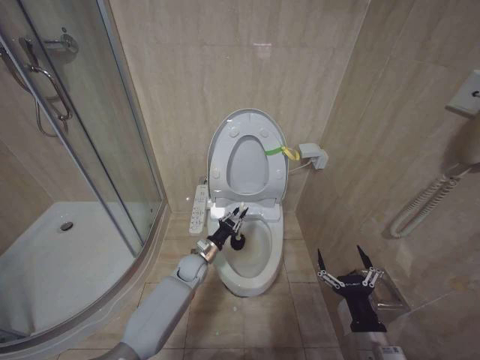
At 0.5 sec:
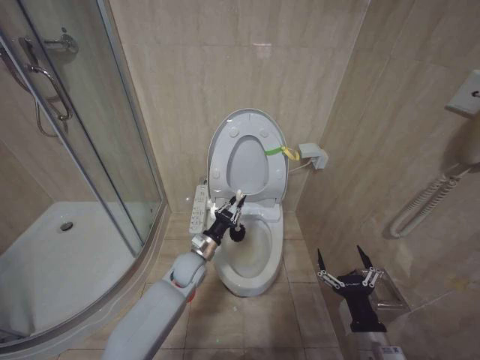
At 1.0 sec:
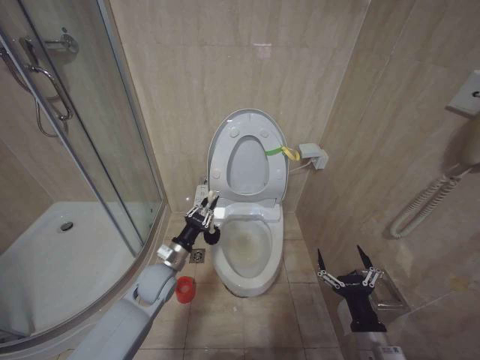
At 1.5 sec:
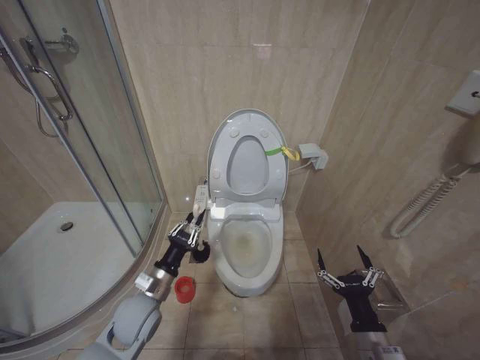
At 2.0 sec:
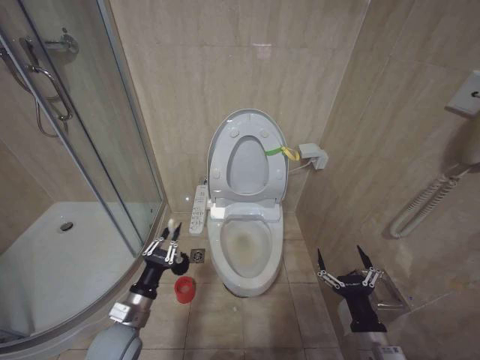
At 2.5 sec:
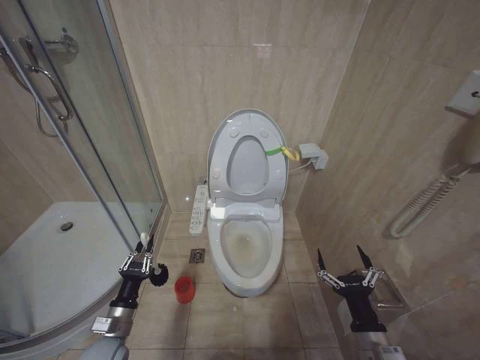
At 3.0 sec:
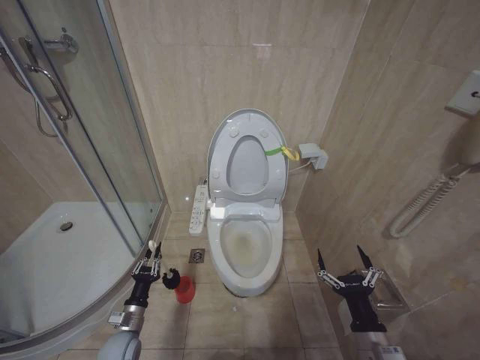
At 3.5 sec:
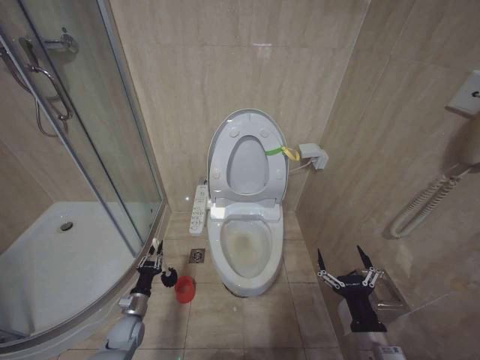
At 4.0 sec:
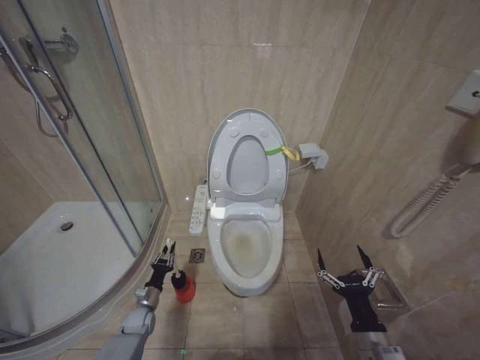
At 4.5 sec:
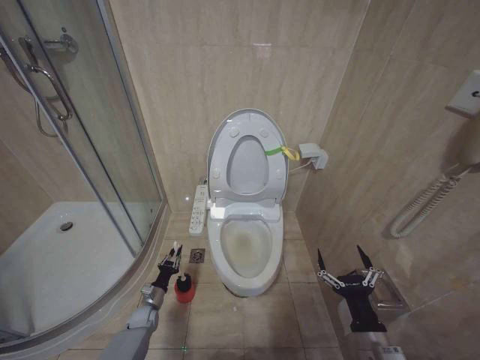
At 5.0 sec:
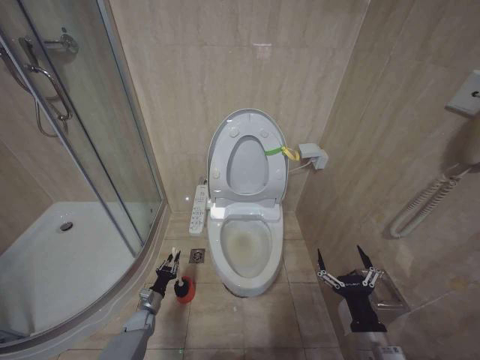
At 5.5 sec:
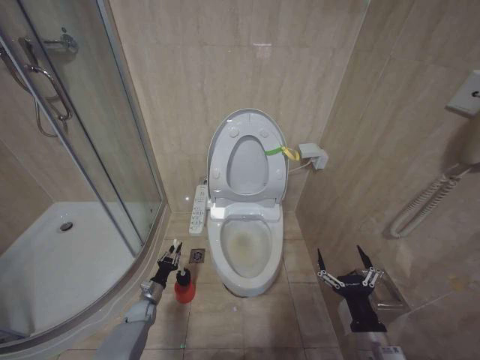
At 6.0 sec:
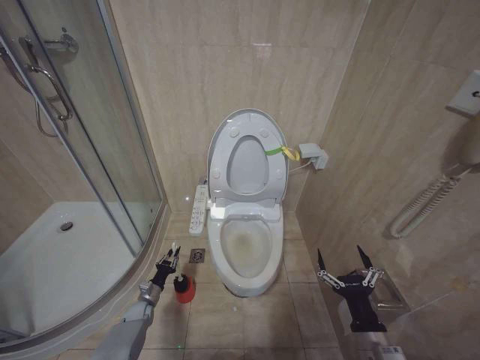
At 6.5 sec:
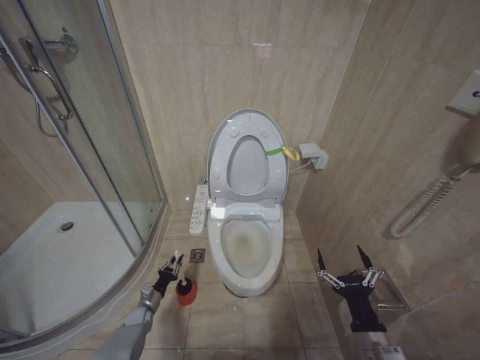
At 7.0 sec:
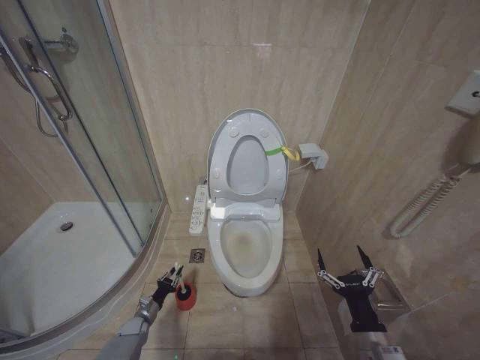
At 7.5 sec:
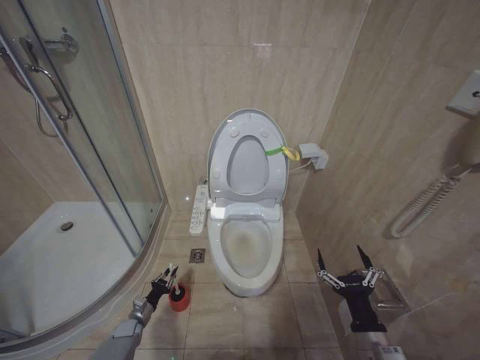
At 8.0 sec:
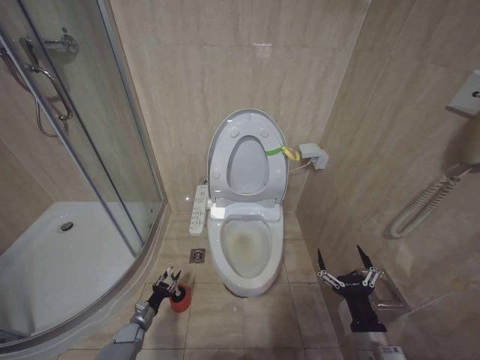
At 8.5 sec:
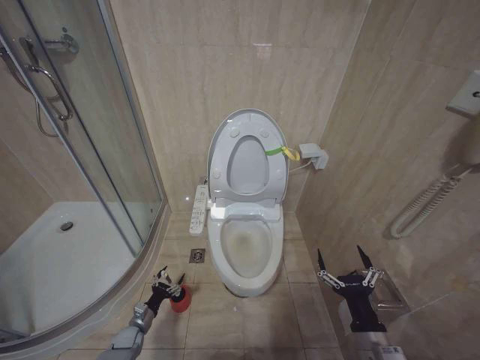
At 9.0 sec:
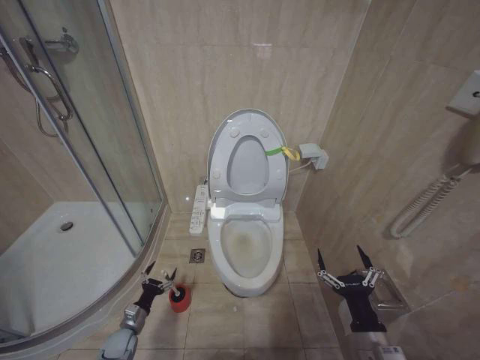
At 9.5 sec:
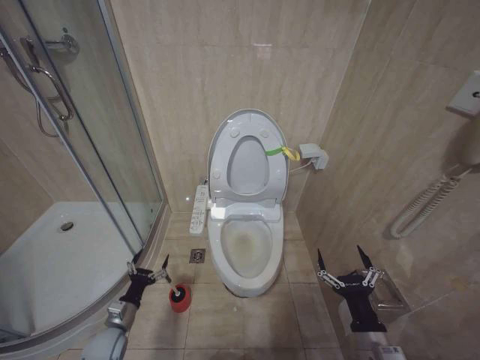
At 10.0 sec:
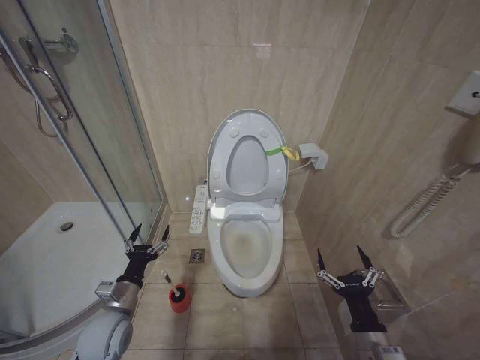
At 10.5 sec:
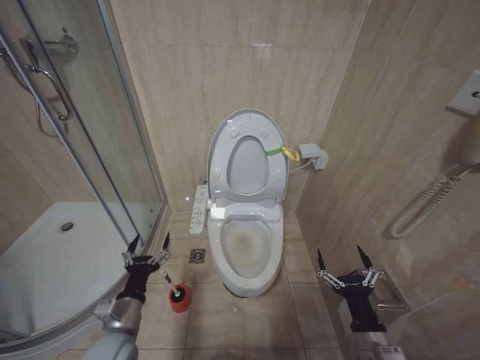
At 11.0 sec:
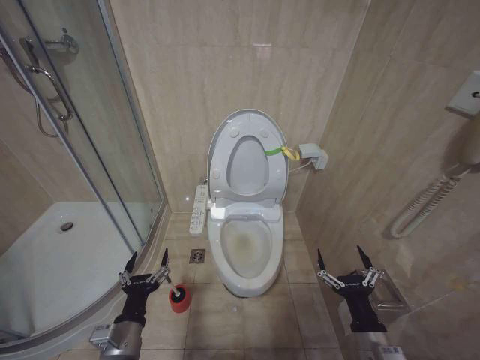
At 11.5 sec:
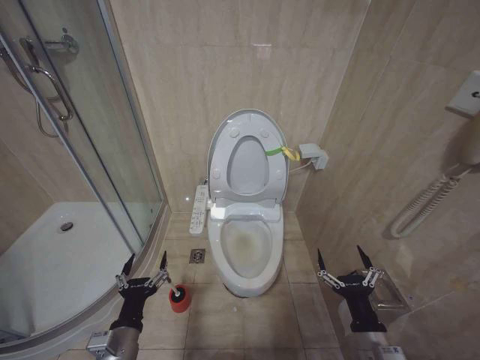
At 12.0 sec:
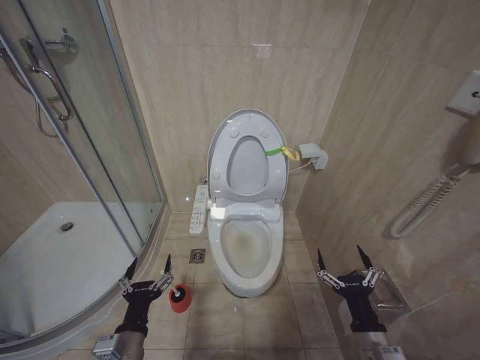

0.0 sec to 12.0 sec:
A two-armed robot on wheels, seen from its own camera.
Task of the whole recording: Open the toilet lid, clean the toilet bowl with a toilet brush, close the toilet lid, and flush.
0.0 sec to 2.0 sec: The left gripper shifts about 25 cm backward and to the left.
2.0 sec to 4.0 sec: The left gripper travels downward and forward by some 25 cm.
6.0 sec to 8.0 sec: The left gripper is displaced backward by roughly 5 cm.
8.0 sec to 10.0 sec: The left gripper goes roughly 30 cm upward, and opens its fingers.
10.0 sec to 12.0 sec: The left gripper shifts roughly 15 cm backward and to the right.

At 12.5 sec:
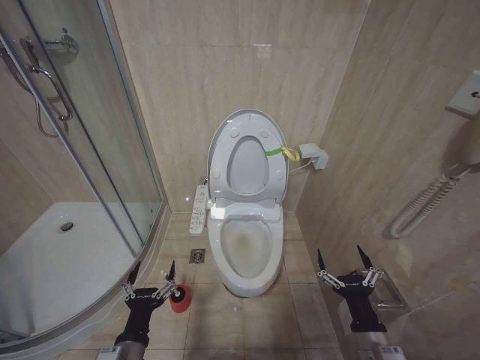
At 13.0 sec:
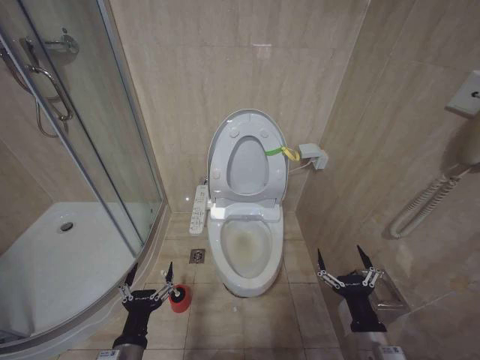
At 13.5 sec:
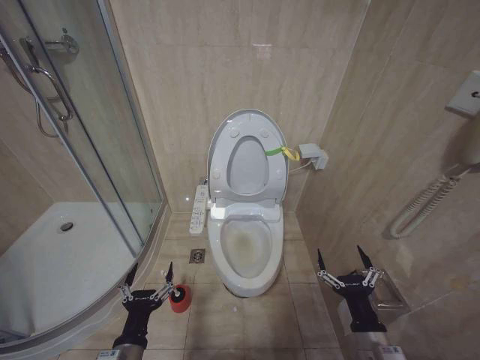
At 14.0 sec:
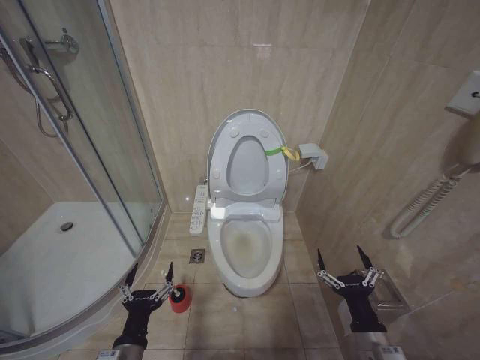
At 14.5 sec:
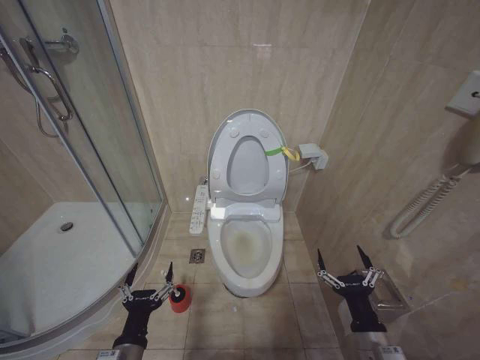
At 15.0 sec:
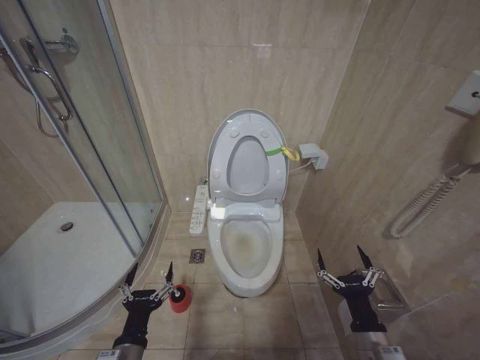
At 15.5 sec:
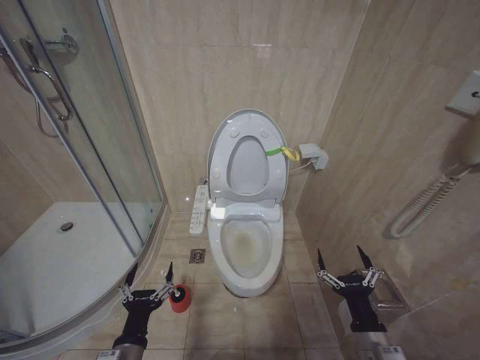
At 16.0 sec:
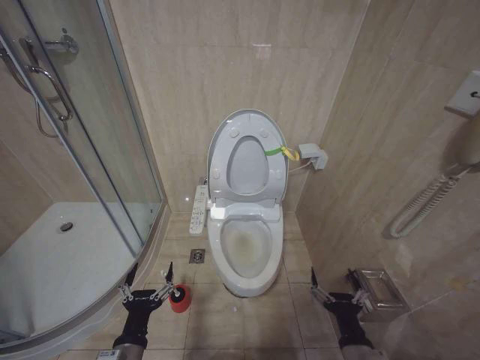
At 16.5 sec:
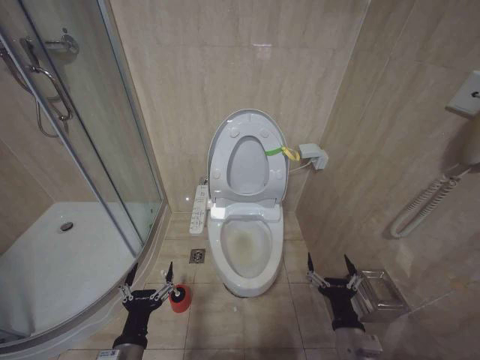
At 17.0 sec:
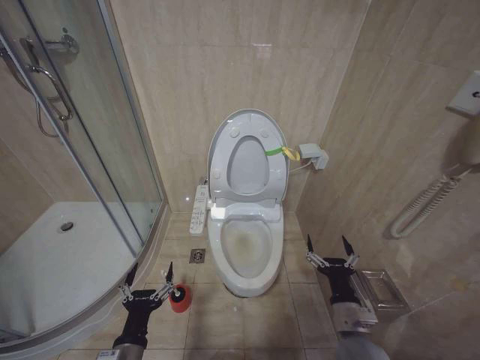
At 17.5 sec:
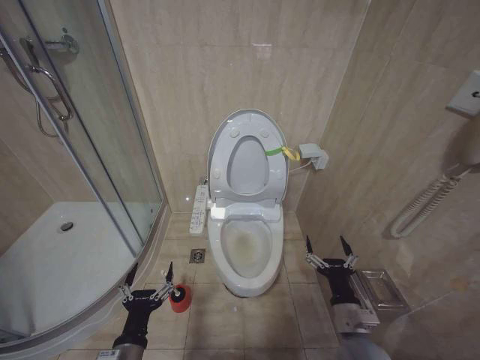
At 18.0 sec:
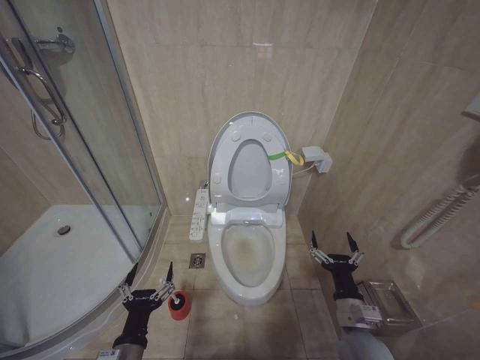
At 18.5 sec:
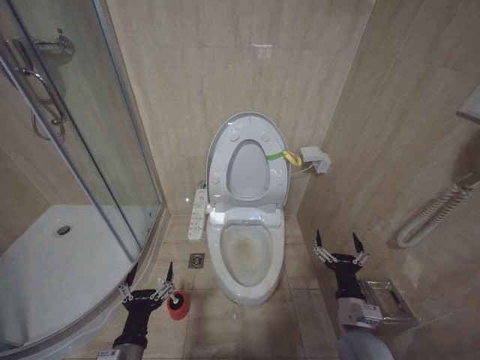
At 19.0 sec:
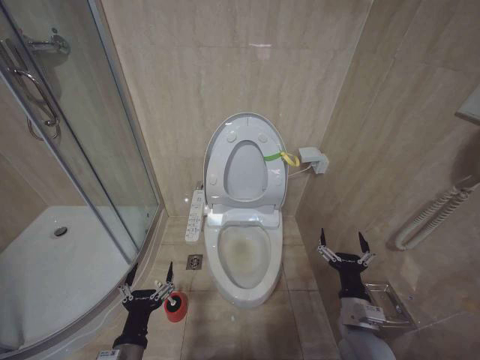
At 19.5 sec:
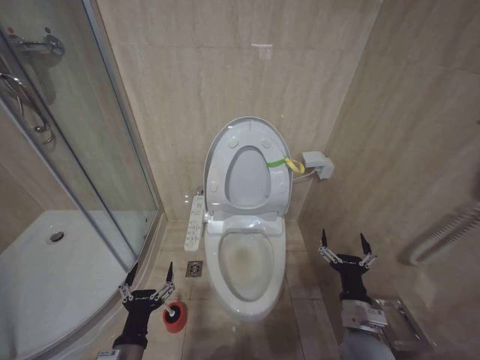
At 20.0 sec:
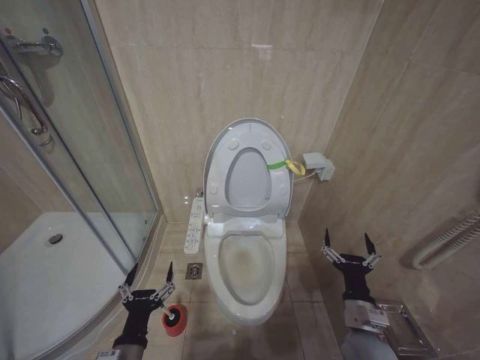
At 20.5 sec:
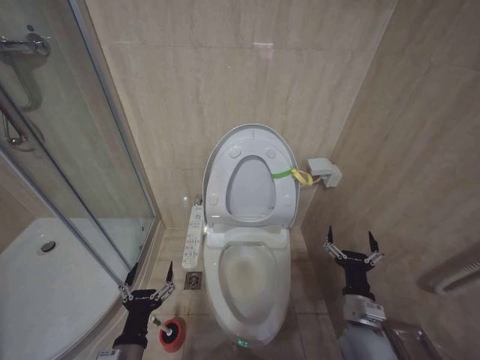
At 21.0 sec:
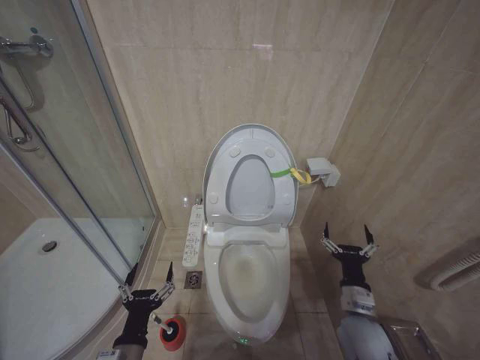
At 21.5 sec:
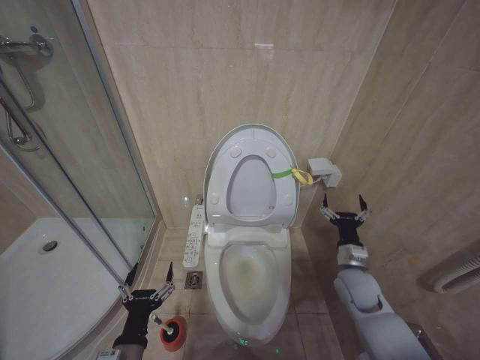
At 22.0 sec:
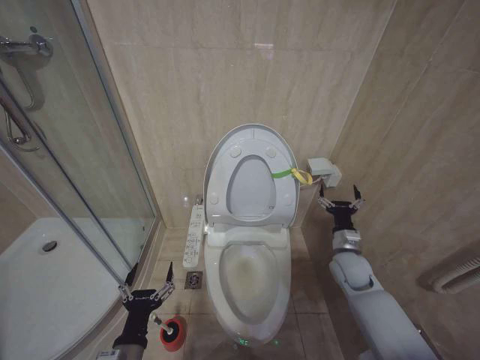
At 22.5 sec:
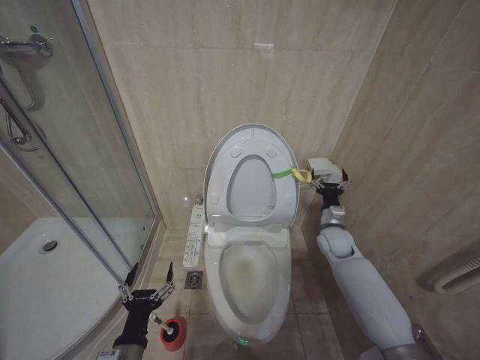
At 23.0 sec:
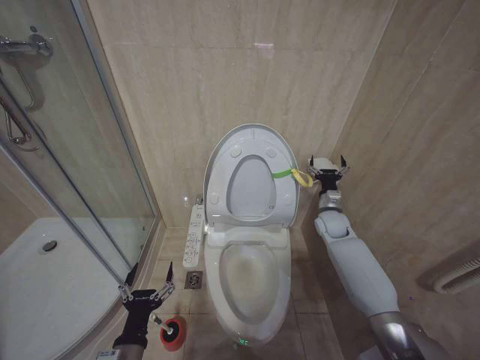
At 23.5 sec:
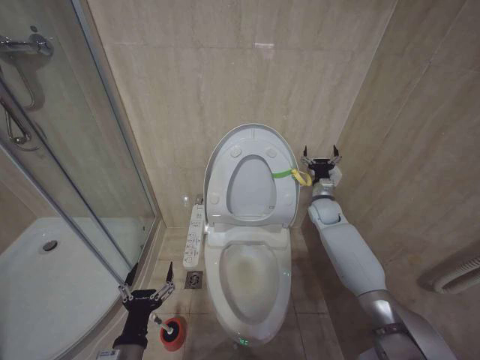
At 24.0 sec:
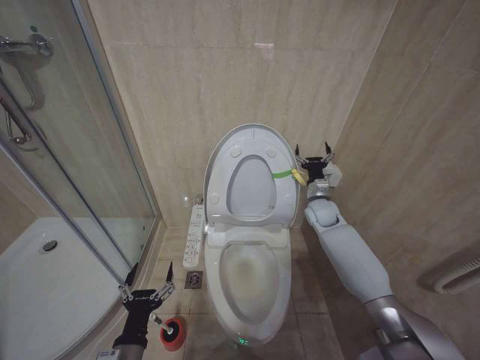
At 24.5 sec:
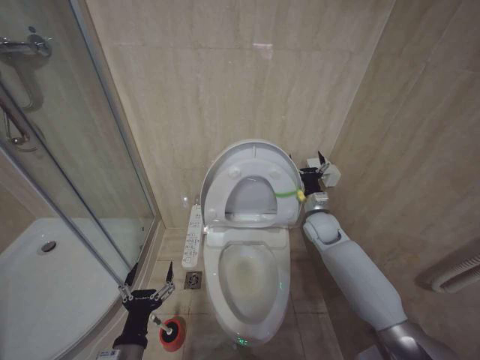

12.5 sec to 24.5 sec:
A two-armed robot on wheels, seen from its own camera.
Task of the whole recording: Open the toilet lid, clean the toilet bowl with a toilet brush, close the toilet lid, and flush.
12.5 sec to 14.5 sec: Both grippers stay about where they are.
14.5 sec to 16.5 sec: The grippers stay close to where they were, moving slightly.
16.5 sec to 18.5 sec: The right gripper is displaced forward by some 5 cm.
18.5 sec to 20.5 sec: There are only small adjustments of the grippers.
20.5 sec to 22.5 sec: The right gripper travels forward by roughly 25 cm.
22.5 sec to 24.5 sec: The right gripper ends up roughly 10 cm from where it was.

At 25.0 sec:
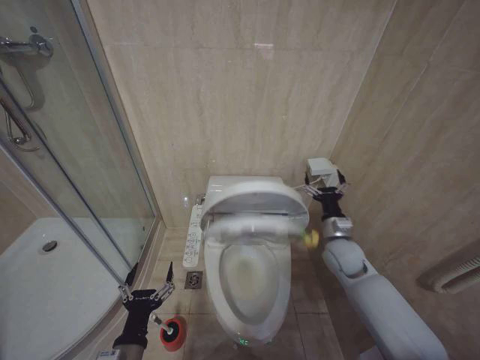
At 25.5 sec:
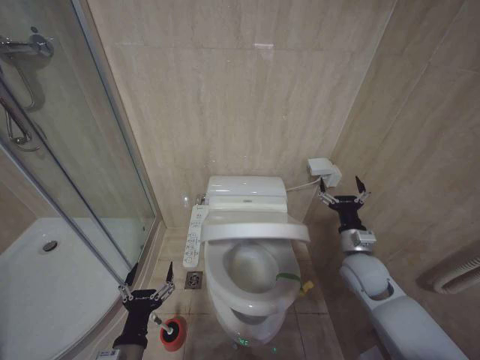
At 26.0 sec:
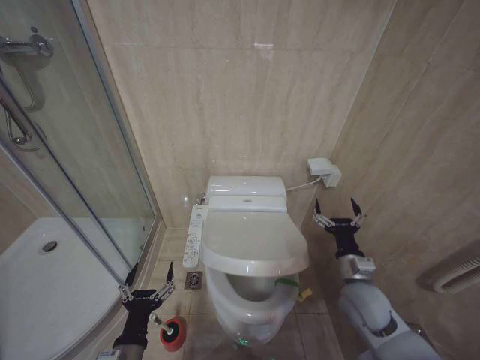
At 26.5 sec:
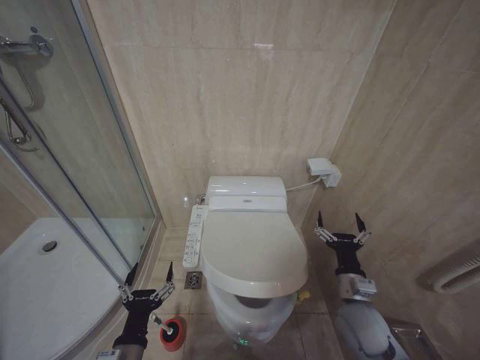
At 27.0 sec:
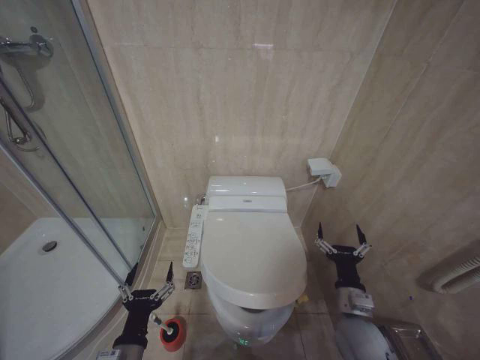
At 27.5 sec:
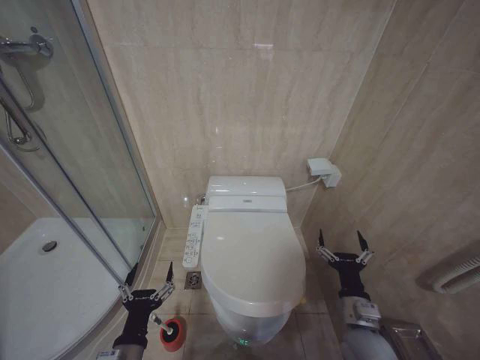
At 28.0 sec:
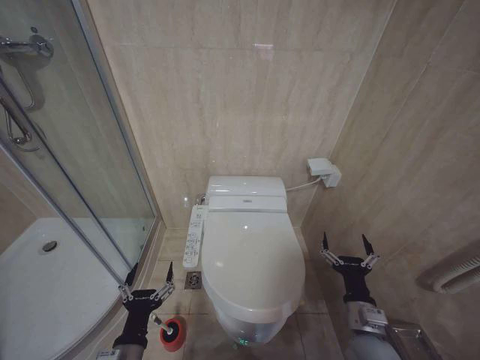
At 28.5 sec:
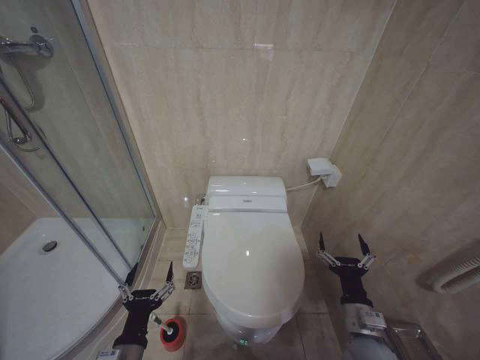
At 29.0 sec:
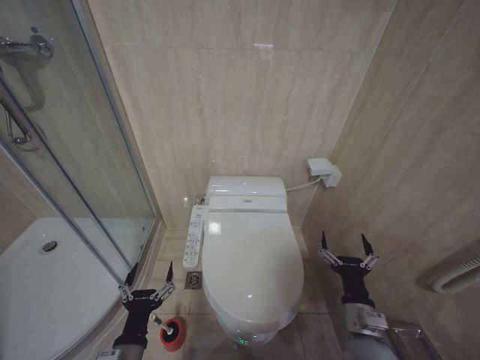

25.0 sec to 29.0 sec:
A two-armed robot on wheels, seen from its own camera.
Task of the whole recording: Open the toilet lid, clean the toilet bowl with a toilet brush, close the toilet lid, and flush.
25.0 sec to 27.0 sec: The right gripper heads backward, covering some 20 cm.
27.0 sec to 29.0 sec: The grippers stay close to where they were, moving slightly.
